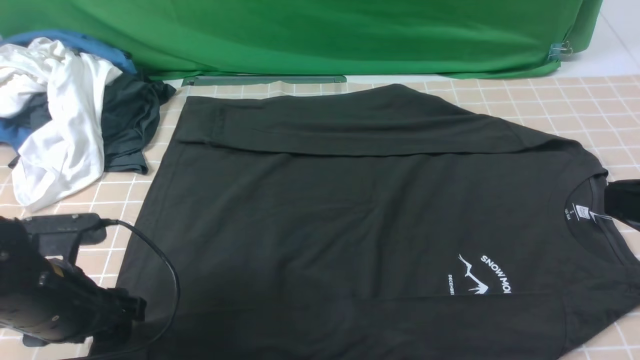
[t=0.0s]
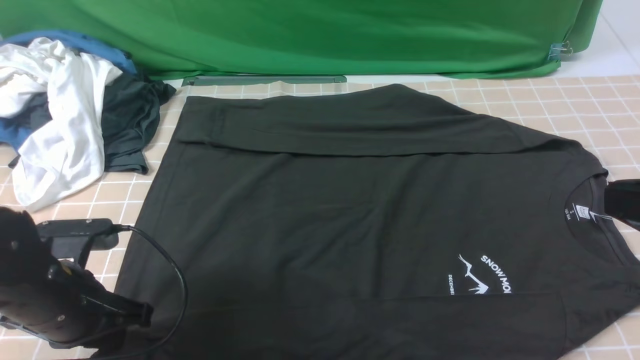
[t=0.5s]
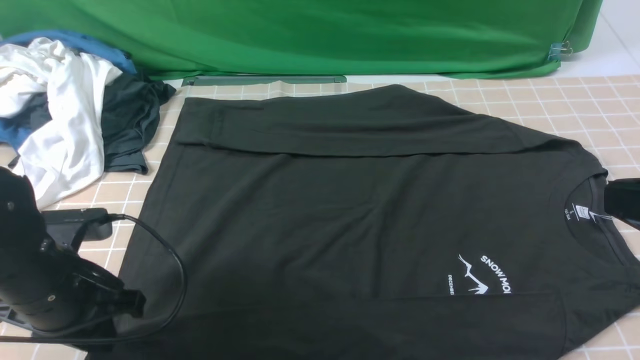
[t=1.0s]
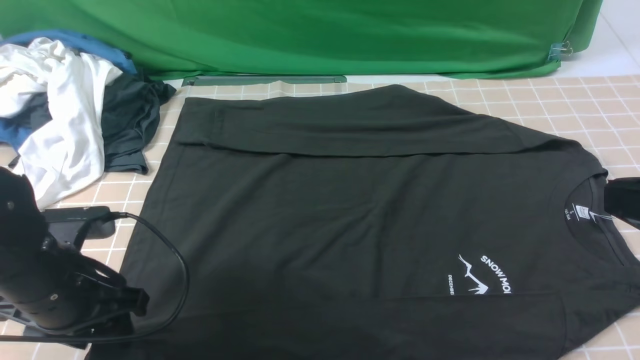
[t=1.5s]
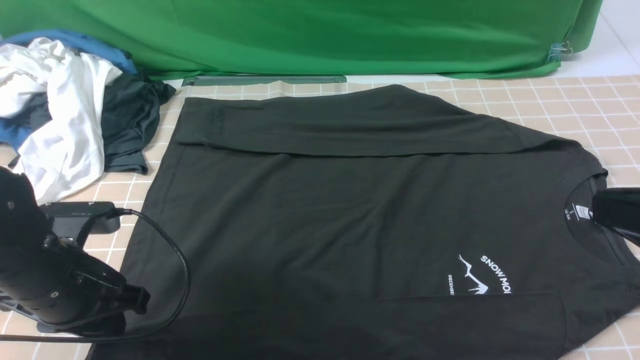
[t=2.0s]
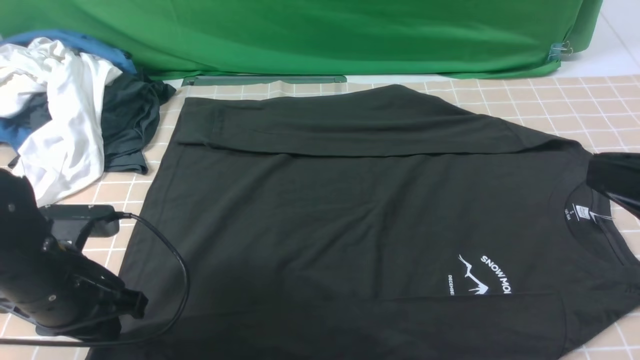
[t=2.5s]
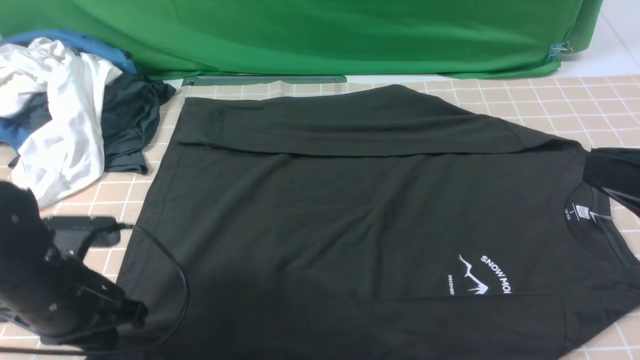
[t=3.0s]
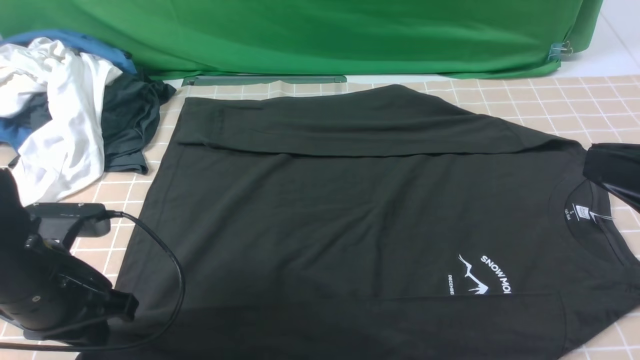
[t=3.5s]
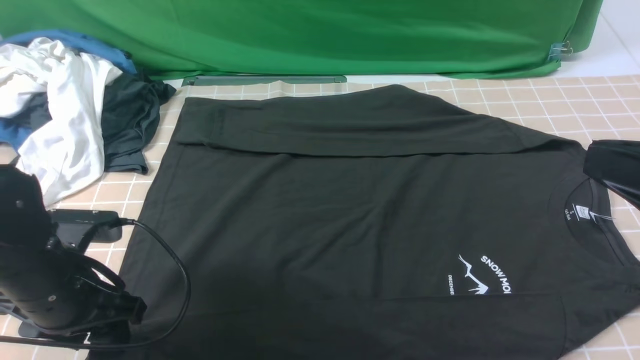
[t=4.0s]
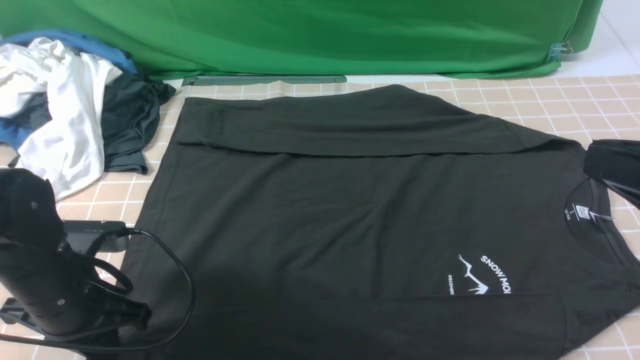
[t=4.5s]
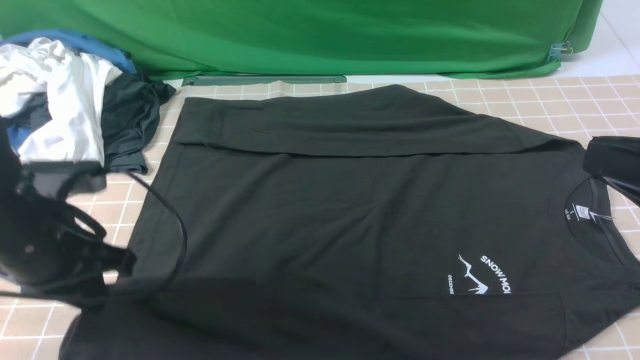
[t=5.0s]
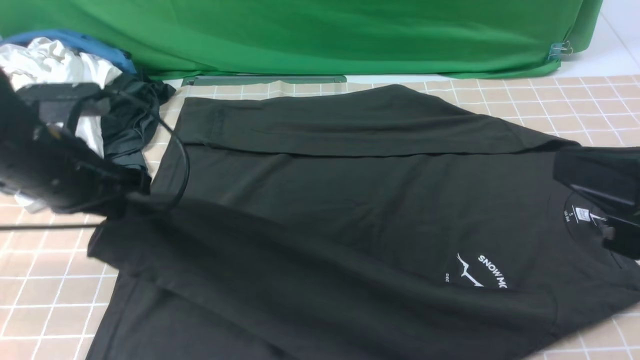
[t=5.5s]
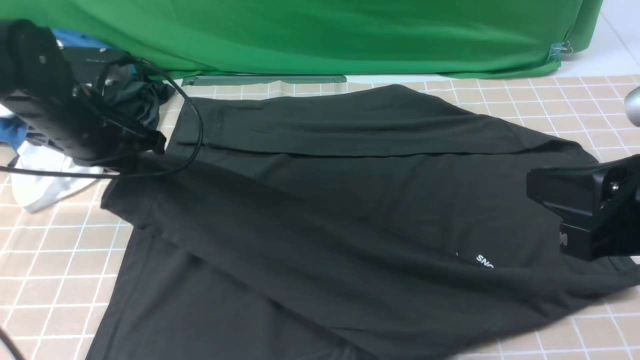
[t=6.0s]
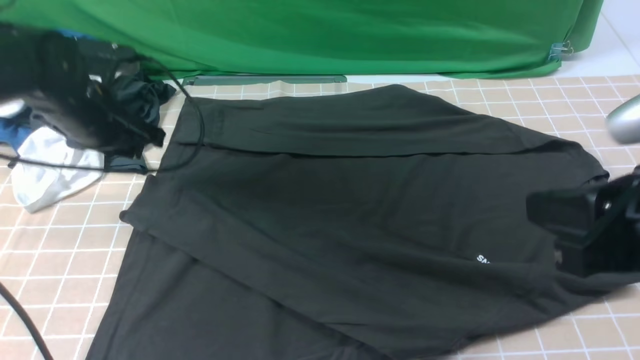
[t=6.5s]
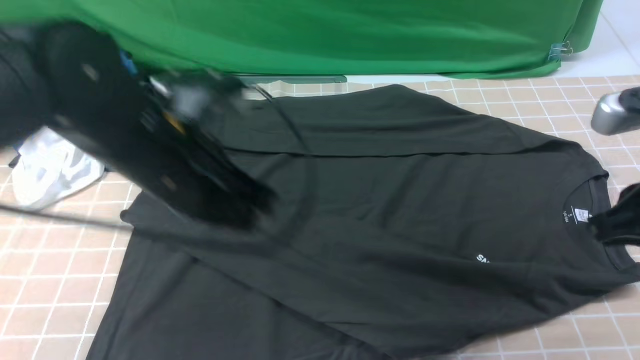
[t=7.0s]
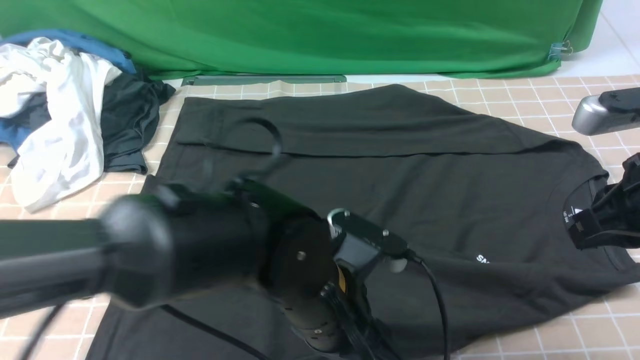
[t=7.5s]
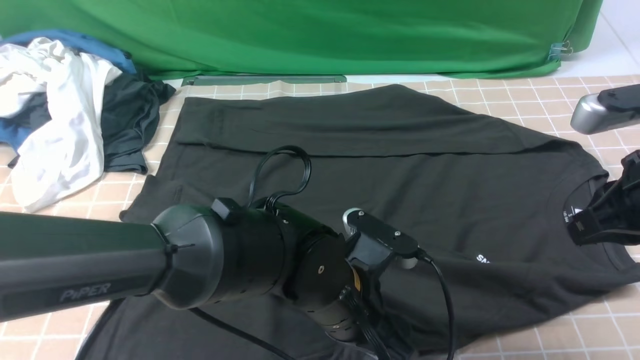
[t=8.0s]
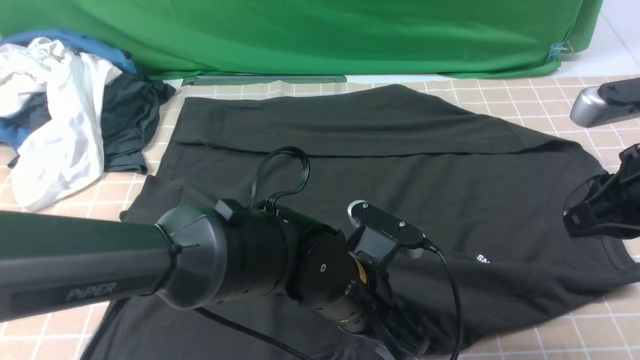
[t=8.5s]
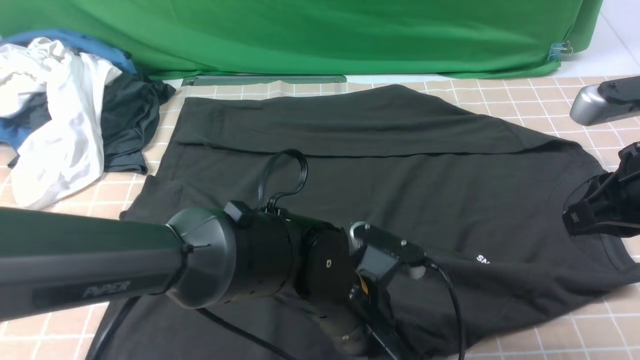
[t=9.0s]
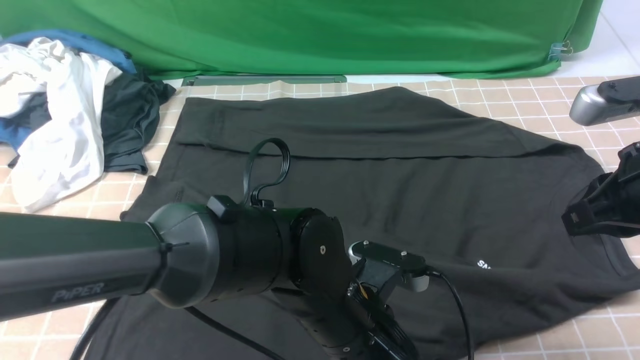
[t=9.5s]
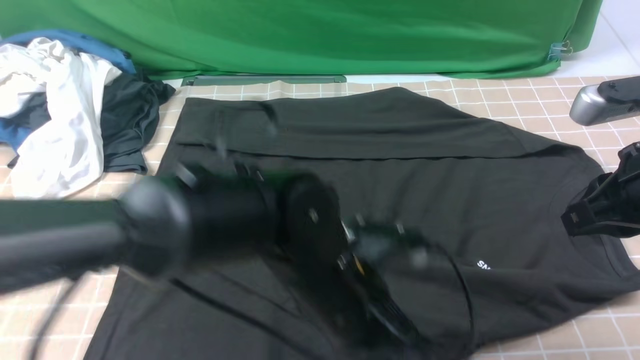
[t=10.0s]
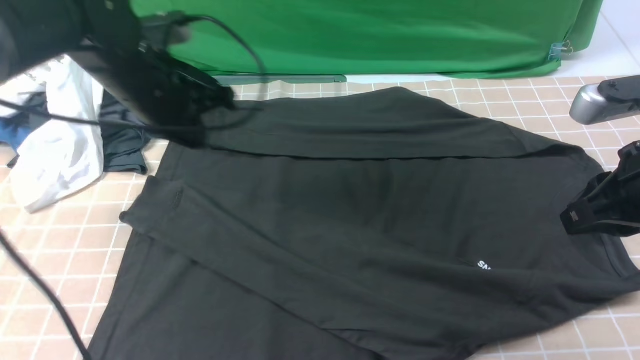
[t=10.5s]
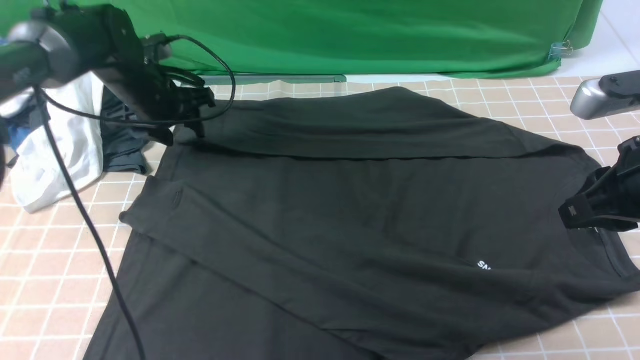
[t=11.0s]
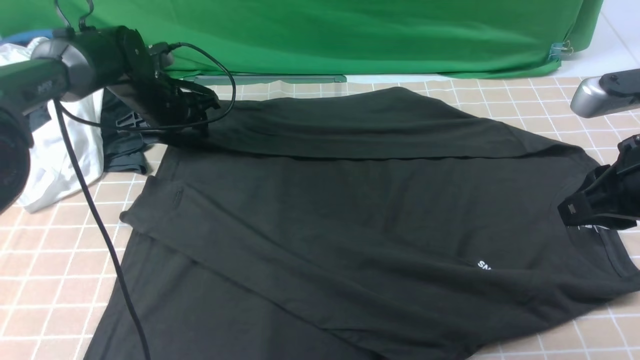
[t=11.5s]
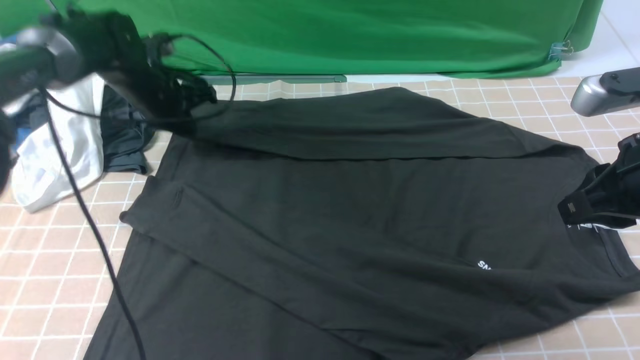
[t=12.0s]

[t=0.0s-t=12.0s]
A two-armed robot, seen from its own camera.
Step, t=0.0s to t=4.5s: use the left arm to clamp the cuff closest to it.
Step, t=5.0s to t=6.0s: use the left arm to drag and place the cuff at the centered position on the left edge of the fabric.
Step, t=6.5s to t=11.5s: use the left arm to clamp the cuff farthest from it.
t=0.0s to t=2.0s: The left gripper closes its fingers.
t=2.0s to t=4.0s: The left gripper opens.
t=4.0s to t=6.0s: The left gripper is displaced forward and upward by some 15 cm, and closes its fingers.
t=6.0s to t=8.0s: The left gripper travels to the right and backward by some 30 cm, and opens its fingers; the right gripper goes roughly 10 cm forward.
t=8.0s to t=10.0s: The left gripper is displaced upward by some 5 cm, and closes its fingers.
t=10.0s to t=12.0s: The left gripper heads forward and to the left, covering roughly 35 cm, and opens and closes again.

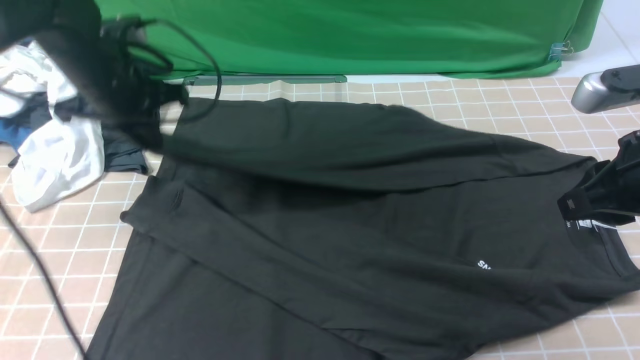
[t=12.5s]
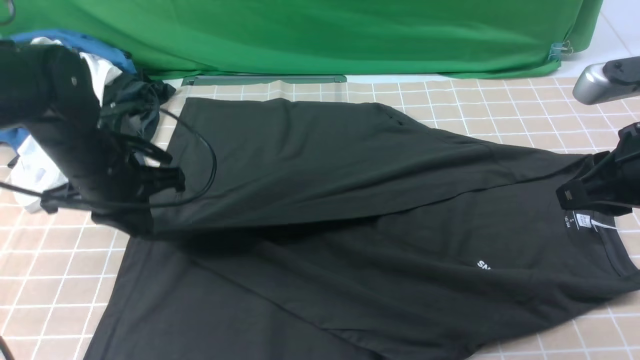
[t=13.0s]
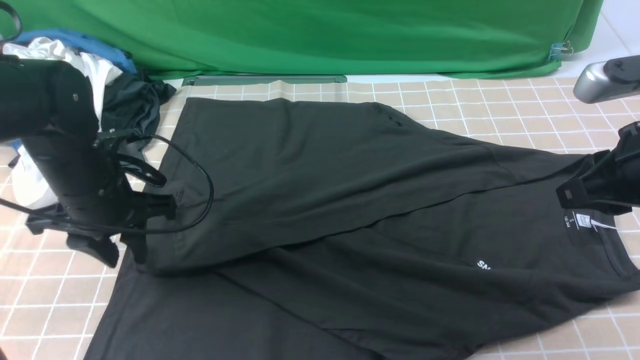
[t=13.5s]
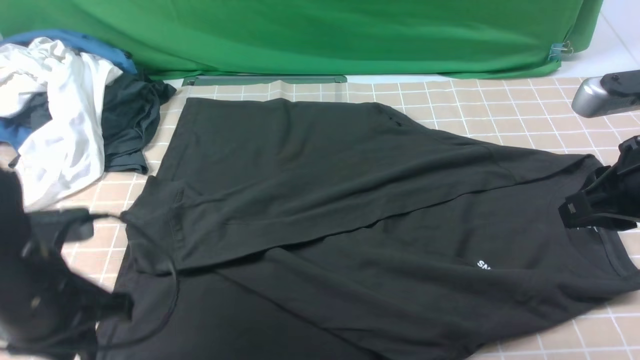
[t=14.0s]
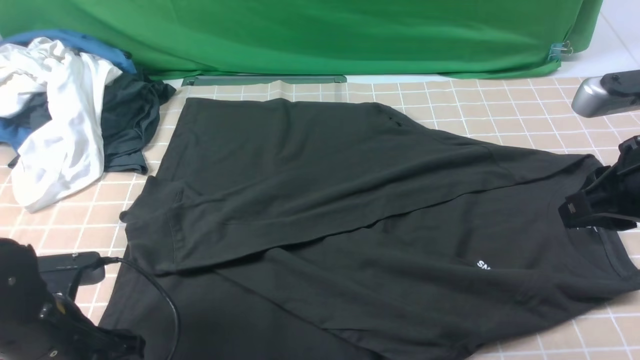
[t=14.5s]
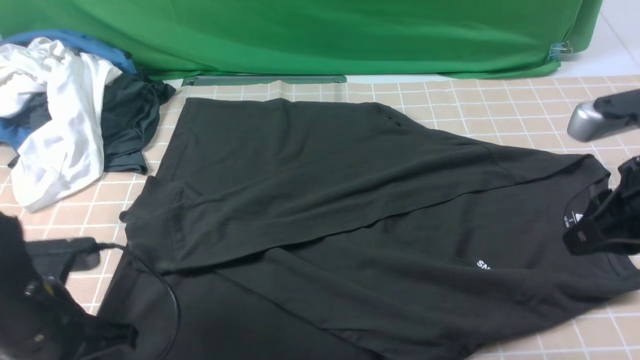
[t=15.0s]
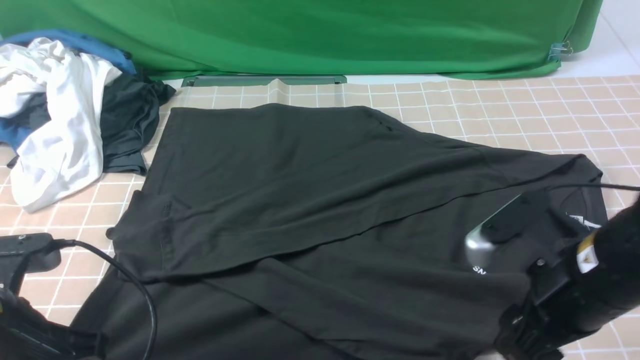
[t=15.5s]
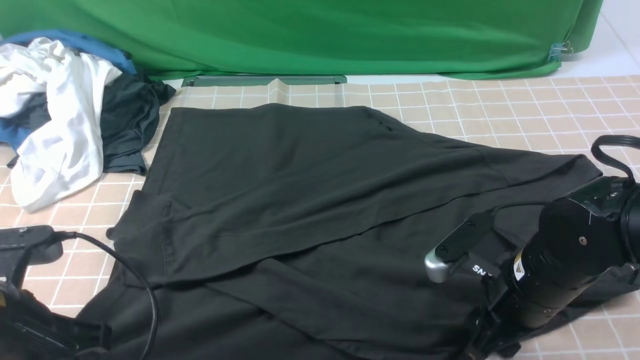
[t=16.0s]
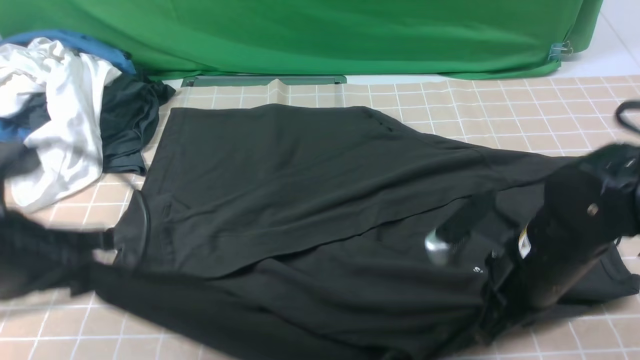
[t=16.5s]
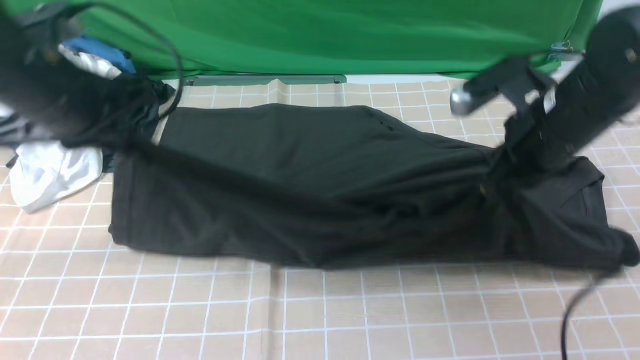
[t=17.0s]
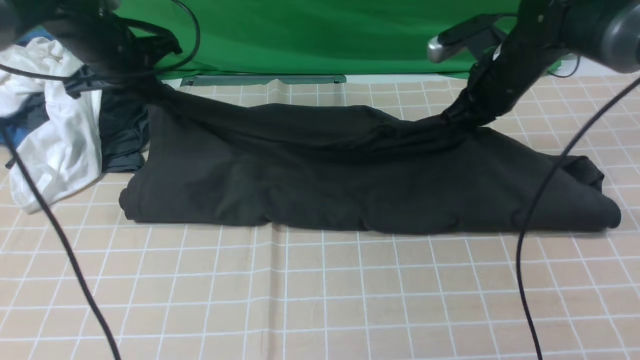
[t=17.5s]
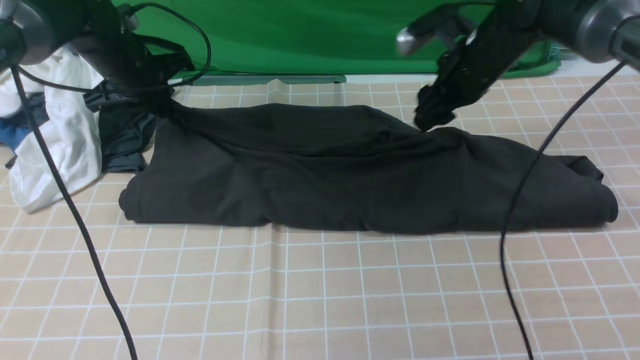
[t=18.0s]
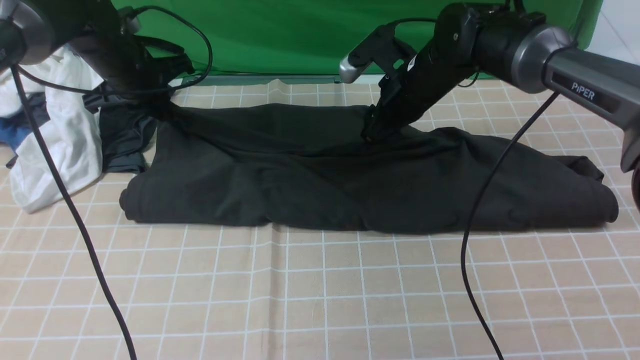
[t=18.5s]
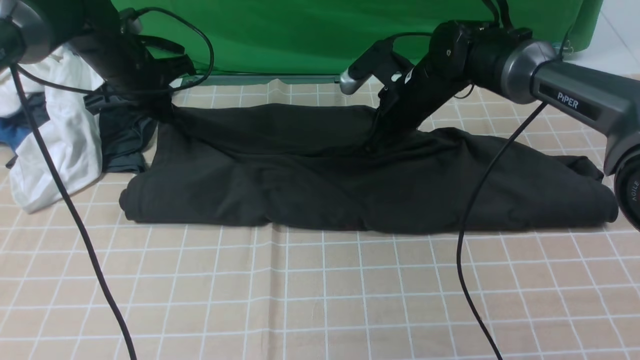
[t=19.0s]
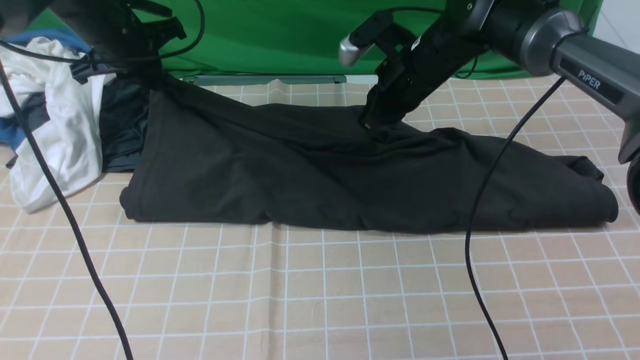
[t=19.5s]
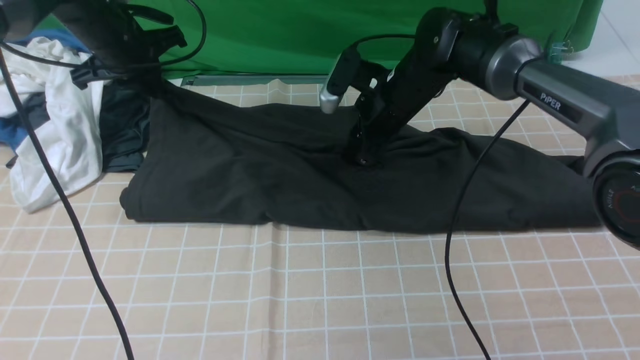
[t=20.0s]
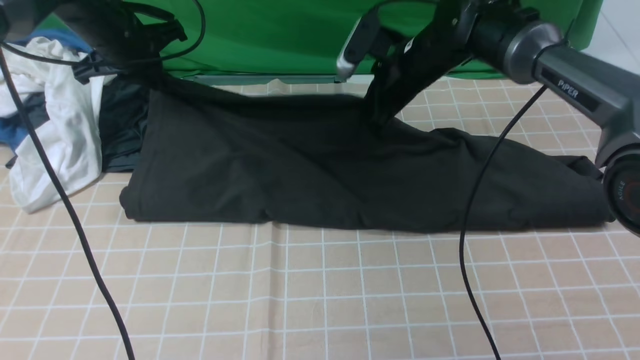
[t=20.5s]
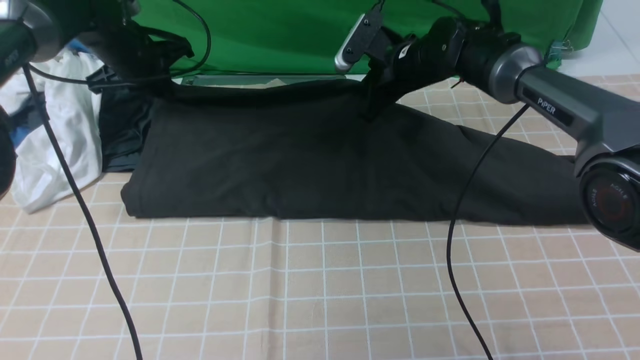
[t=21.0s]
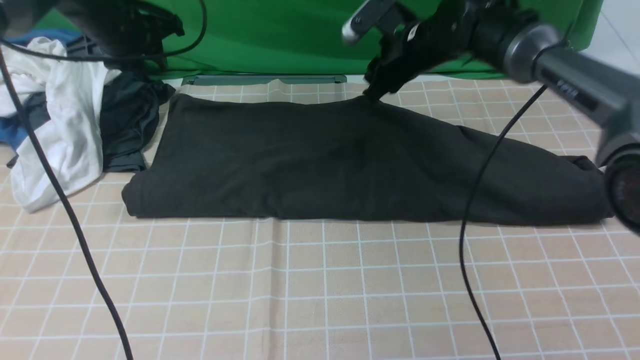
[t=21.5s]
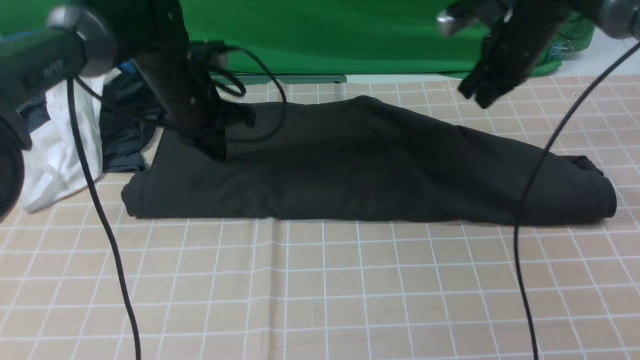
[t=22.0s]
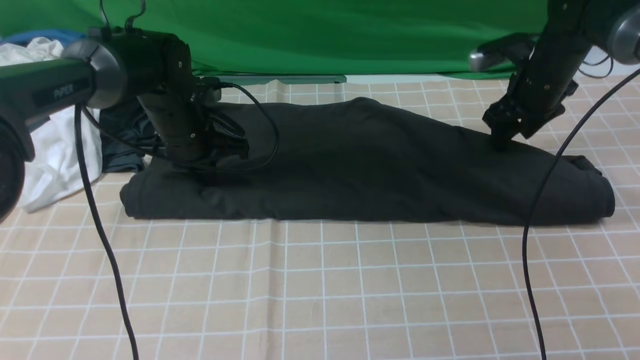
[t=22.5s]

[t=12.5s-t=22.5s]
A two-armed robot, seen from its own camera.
Step, t=13.5s to t=16.0s: use both arms simultaneously to clamp the lower edge of the clothing fabric.
Step, t=16.5s to t=21.0s: use both arms to drag the lower edge of the fabric forward and fold it over the upper edge.
t=12.5s to t=14.5s: The left gripper travels backward and downward by approximately 25 cm, and opens up.
t=14.5s to t=16.5s: The right gripper is displaced downward and to the left by roughly 15 cm, and opens, then closes again, while the left gripper heads upward, covering approximately 10 cm, and closes.
t=16.5s to t=18.5s: Both grippers move forward, approximately 25 cm. The right gripper opens its fingers.
t=18.5s to t=20.5s: The right gripper closes its fingers.
t=20.5s to t=22.5s: The right gripper heads to the right, covering some 15 cm, and opens its fingers; the left gripper is displaced downward, to the right and backward by roughly 15 cm.
